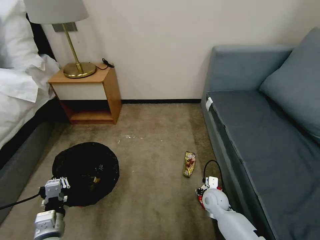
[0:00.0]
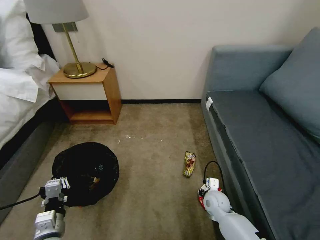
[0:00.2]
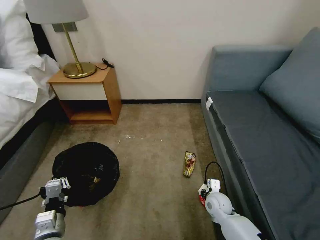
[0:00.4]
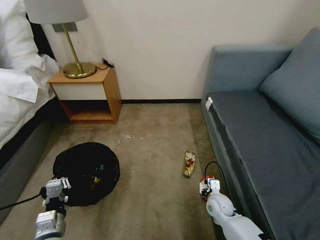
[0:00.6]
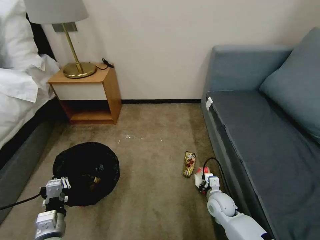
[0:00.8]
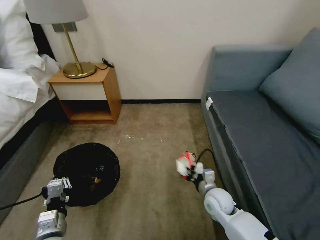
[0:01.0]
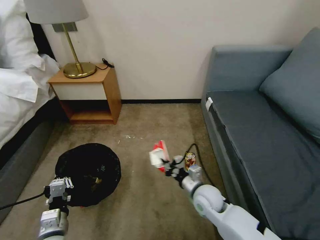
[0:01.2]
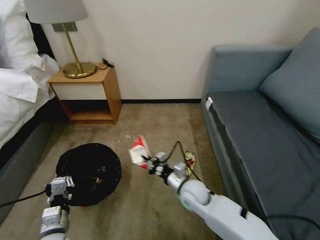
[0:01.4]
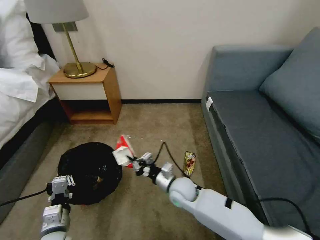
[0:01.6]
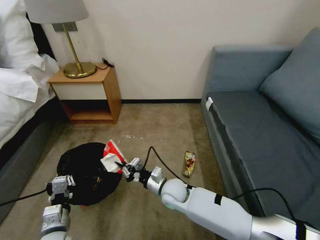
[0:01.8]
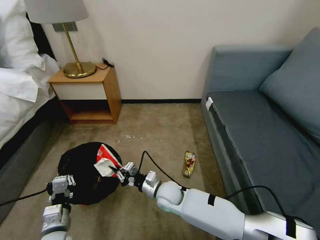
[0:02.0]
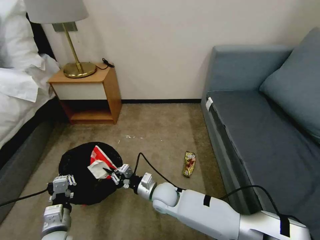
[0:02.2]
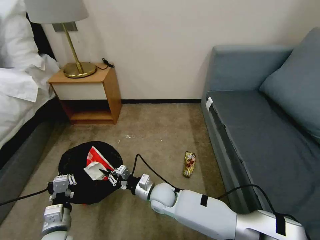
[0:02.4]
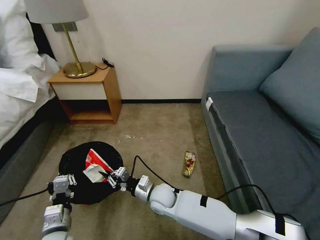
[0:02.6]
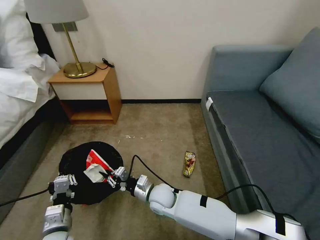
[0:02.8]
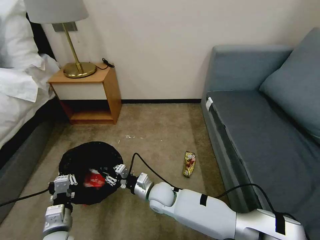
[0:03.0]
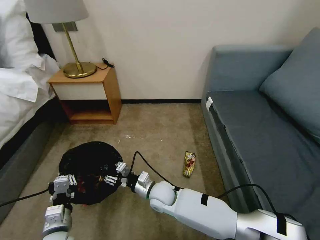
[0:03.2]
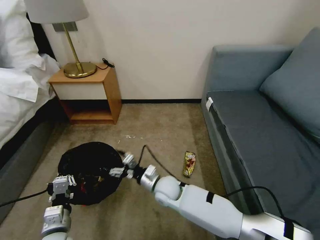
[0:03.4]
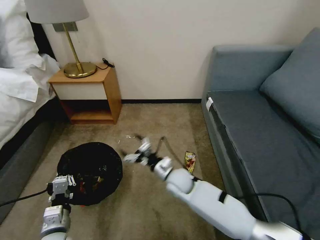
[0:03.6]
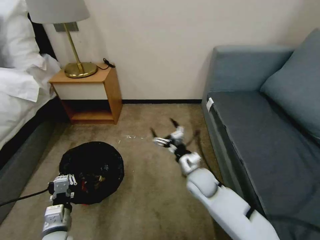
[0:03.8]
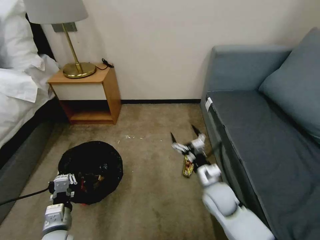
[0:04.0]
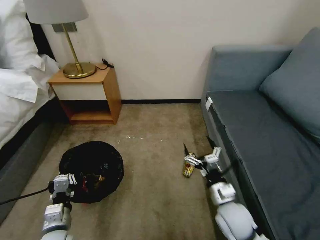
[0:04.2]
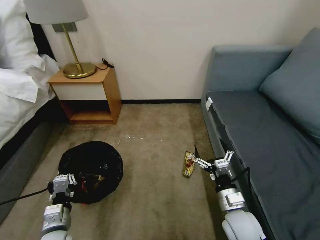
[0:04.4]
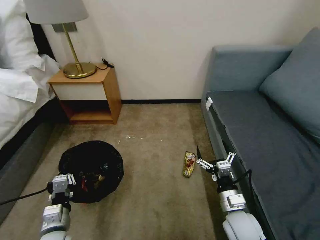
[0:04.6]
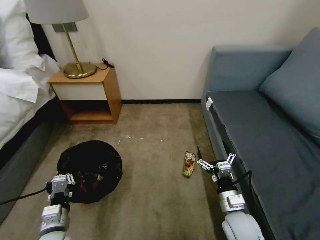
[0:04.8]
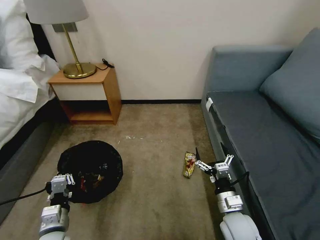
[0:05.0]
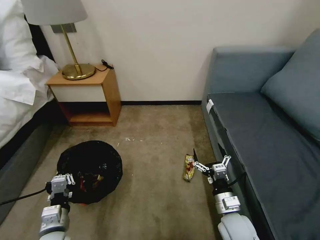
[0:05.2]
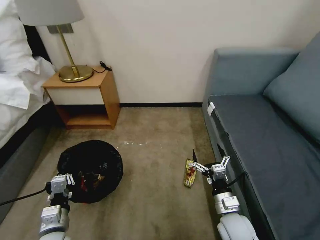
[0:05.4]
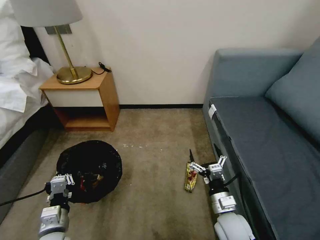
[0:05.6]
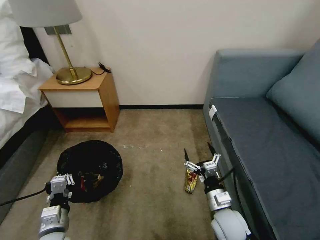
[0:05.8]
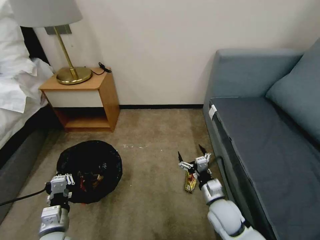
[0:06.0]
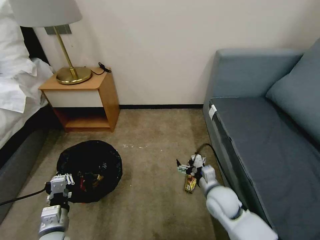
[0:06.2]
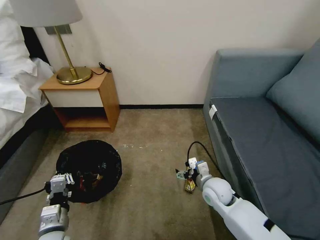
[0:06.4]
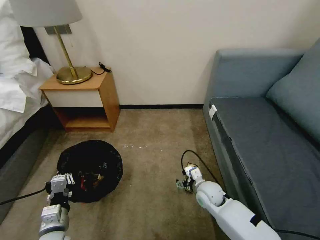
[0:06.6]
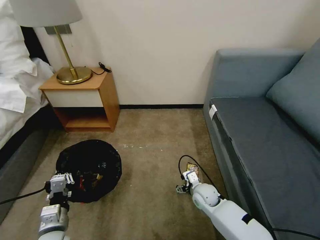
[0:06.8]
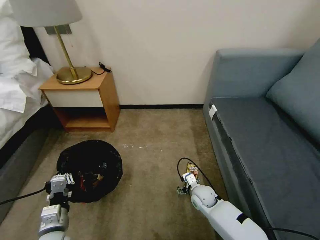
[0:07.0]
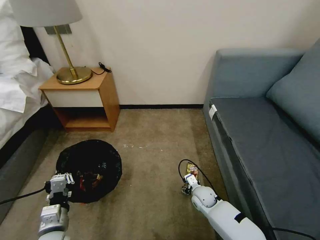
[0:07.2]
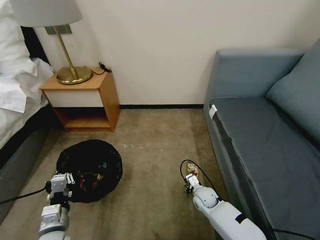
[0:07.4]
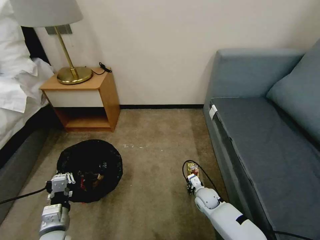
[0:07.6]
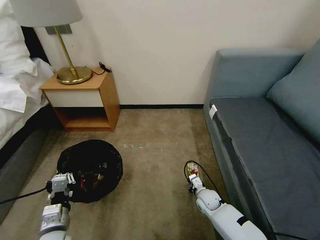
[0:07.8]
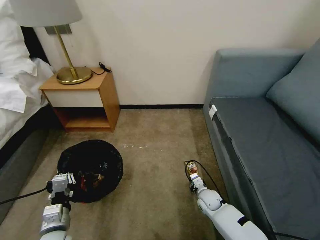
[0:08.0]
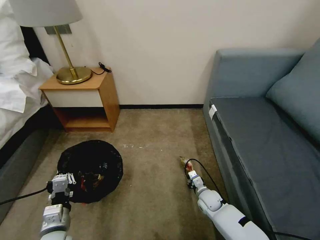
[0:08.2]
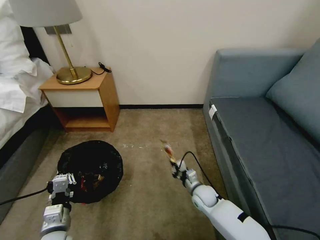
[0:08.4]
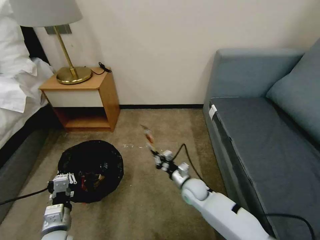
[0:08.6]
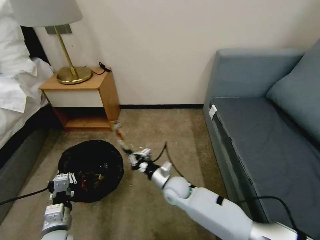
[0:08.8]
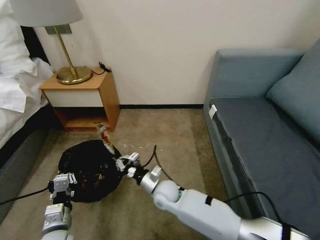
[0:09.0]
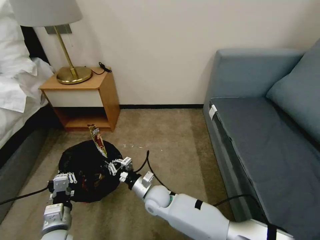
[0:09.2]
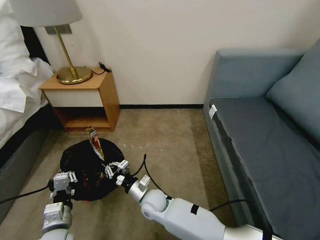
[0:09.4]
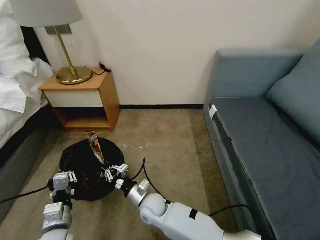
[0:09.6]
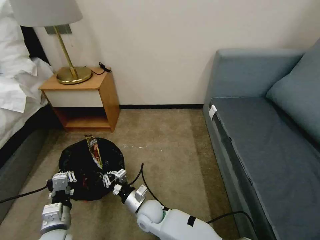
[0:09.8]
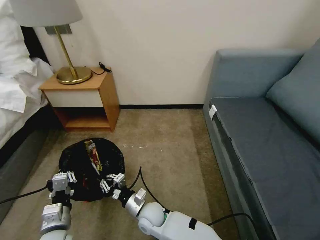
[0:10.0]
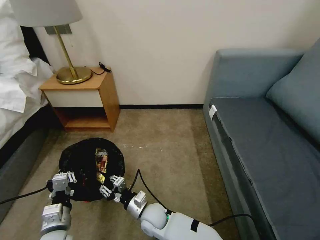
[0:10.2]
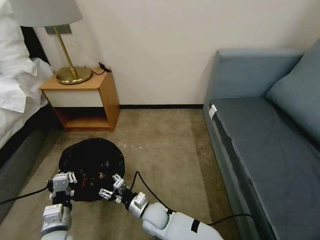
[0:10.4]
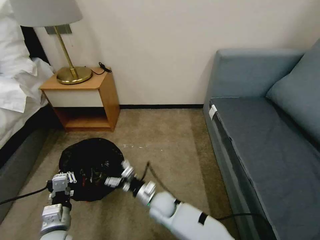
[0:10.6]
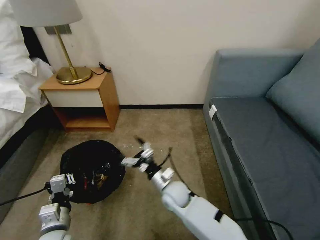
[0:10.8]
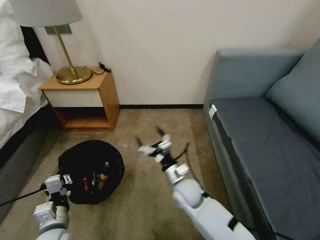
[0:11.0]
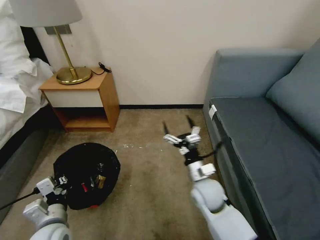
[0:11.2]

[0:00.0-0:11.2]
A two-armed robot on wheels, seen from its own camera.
Task of the whole recording: Pick up the trash bin, then pick up the garbage on the floor and place it into the trash bin.
0:00.0 to 0:01.6: The right gripper travels to the left and upward by approximately 15 cm, and closes up.
0:01.6 to 0:03.2: The right gripper heads to the left, covering approximately 10 cm, and opens up.
0:03.2 to 0:04.8: The right gripper goes roughly 25 cm to the right and backward, and opens.
0:04.8 to 0:06.4: The right gripper travels forward by about 10 cm.
0:06.4 to 0:08.0: The right gripper moves downward, approximately 15 cm, and closes.
0:08.0 to 0:09.6: The right gripper travels to the left by about 25 cm.
0:09.6 to 0:11.2: The right gripper travels to the right and upward by approximately 20 cm, and opens its fingers.

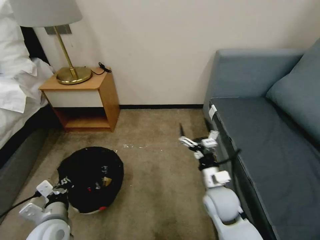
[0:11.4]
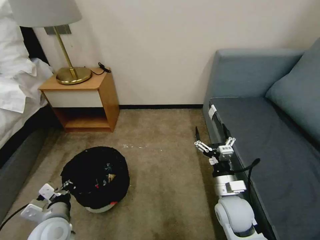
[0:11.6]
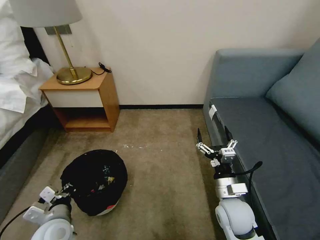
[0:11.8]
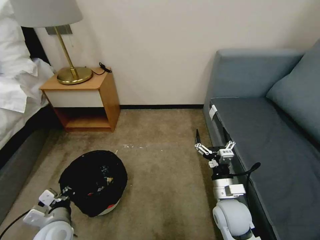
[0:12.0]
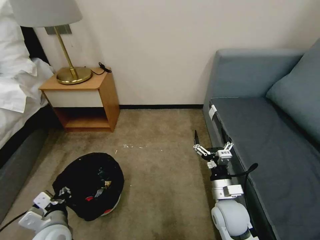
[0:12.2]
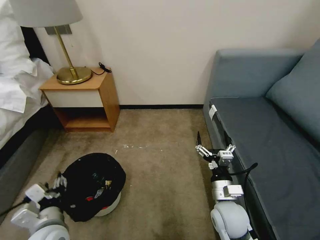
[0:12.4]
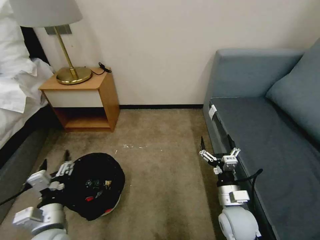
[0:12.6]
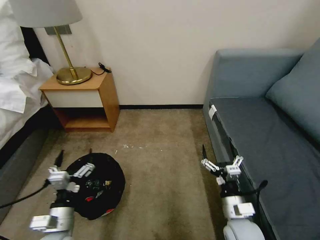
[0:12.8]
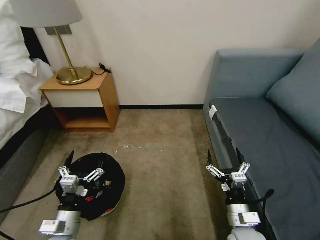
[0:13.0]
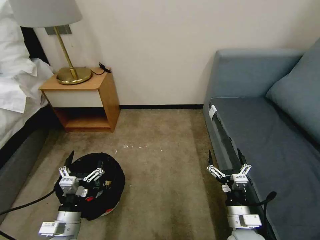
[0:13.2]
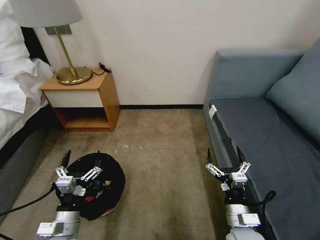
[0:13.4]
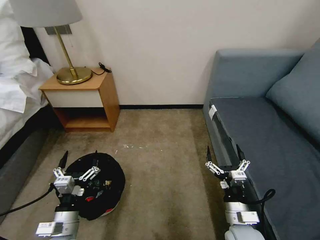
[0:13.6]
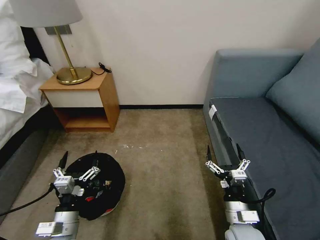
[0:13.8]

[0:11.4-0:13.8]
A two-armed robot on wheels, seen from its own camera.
Task of the whole recording: Pick up the trash bin, then pick up the garbage on the floor and place it into the trash bin.
0:11.4 to 0:12.6: The right gripper ends up roughly 5 cm from where it was. The left gripper opens up.
0:12.6 to 0:13.8: The left gripper shifts by approximately 5 cm. The right gripper ends up about 5 cm from where it was.

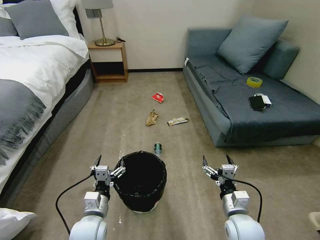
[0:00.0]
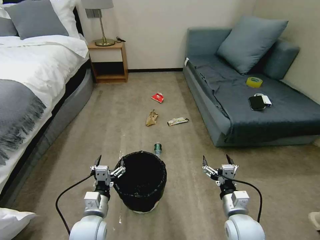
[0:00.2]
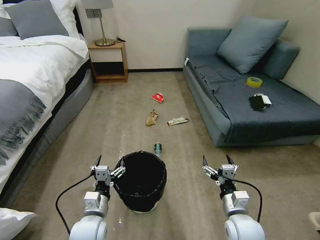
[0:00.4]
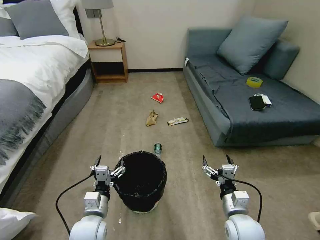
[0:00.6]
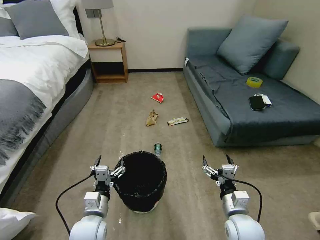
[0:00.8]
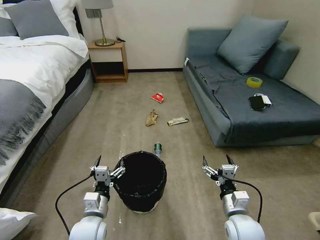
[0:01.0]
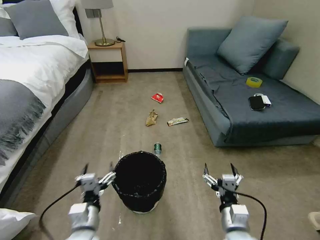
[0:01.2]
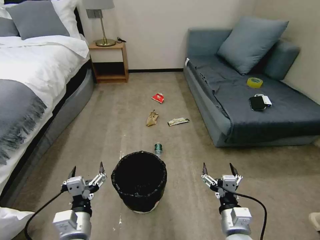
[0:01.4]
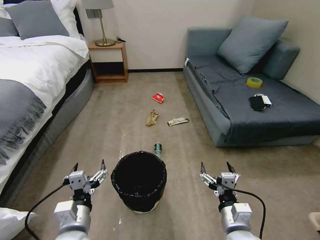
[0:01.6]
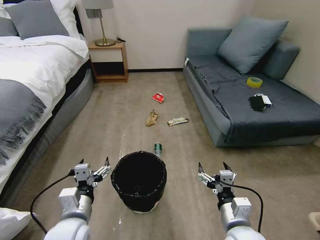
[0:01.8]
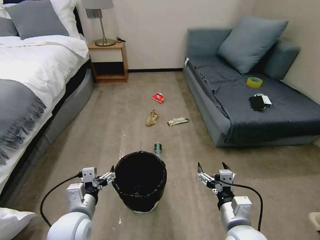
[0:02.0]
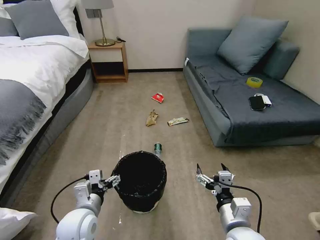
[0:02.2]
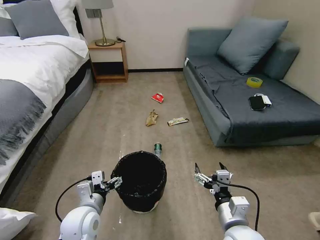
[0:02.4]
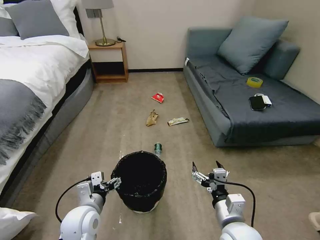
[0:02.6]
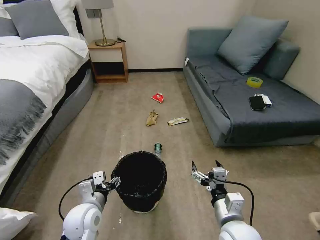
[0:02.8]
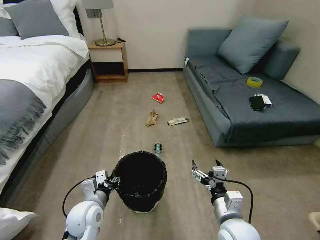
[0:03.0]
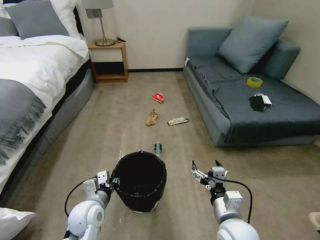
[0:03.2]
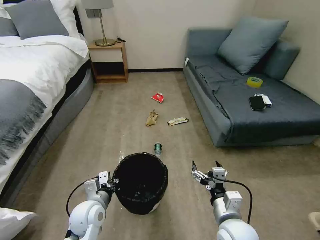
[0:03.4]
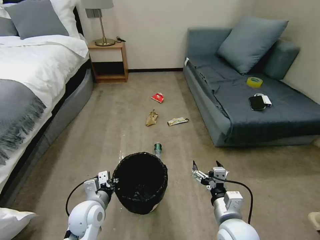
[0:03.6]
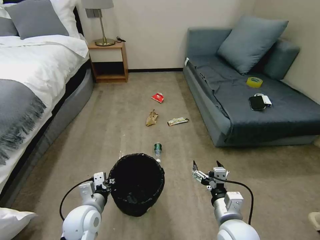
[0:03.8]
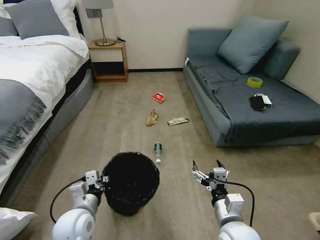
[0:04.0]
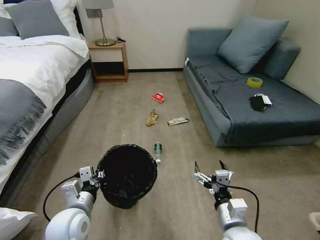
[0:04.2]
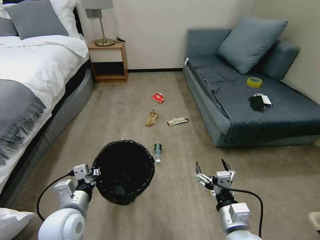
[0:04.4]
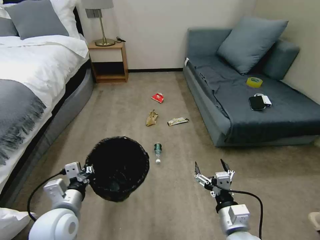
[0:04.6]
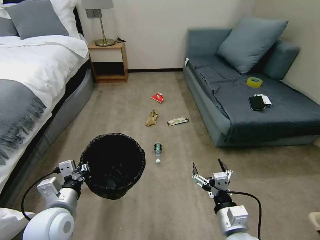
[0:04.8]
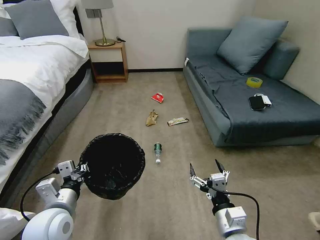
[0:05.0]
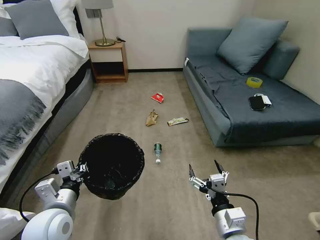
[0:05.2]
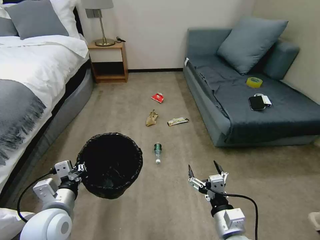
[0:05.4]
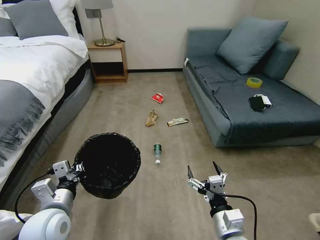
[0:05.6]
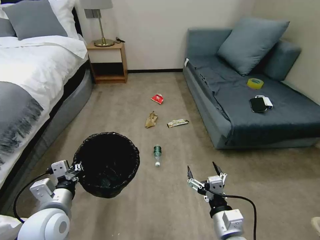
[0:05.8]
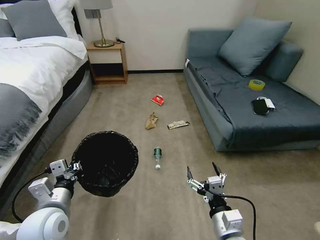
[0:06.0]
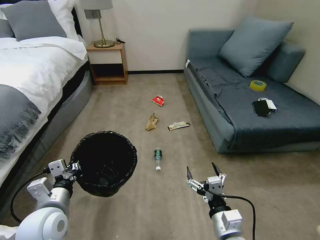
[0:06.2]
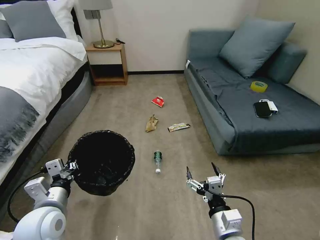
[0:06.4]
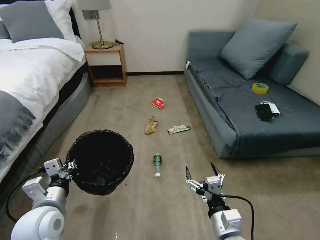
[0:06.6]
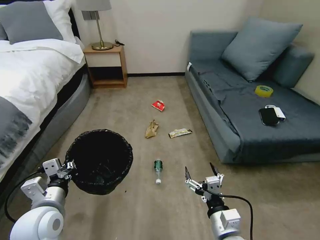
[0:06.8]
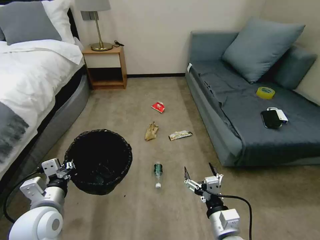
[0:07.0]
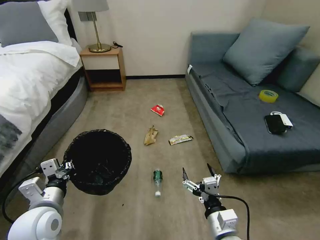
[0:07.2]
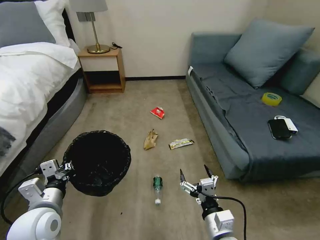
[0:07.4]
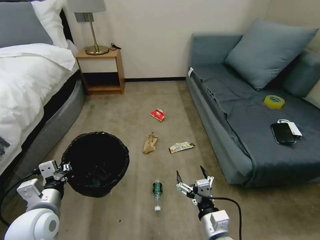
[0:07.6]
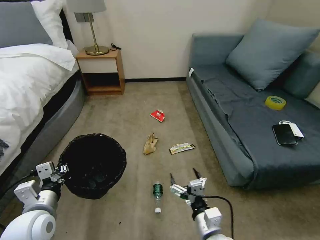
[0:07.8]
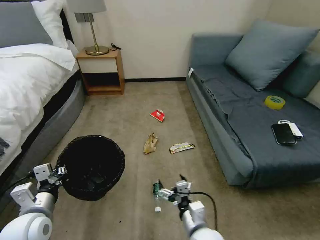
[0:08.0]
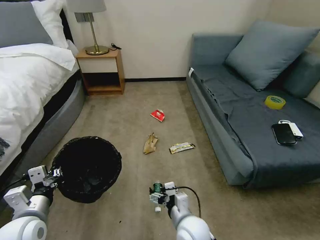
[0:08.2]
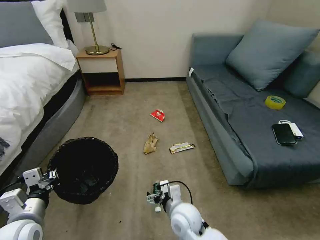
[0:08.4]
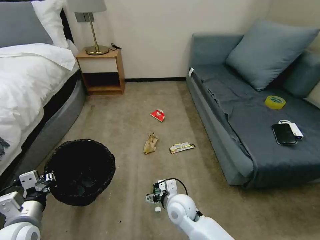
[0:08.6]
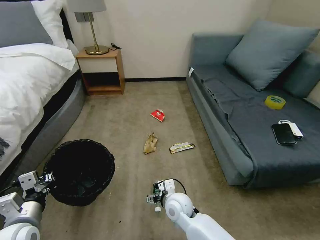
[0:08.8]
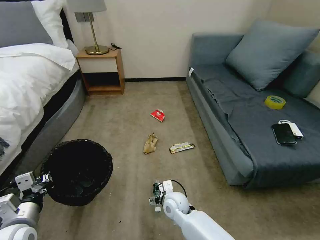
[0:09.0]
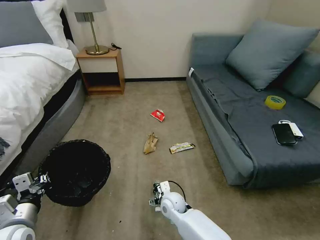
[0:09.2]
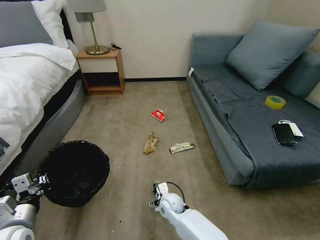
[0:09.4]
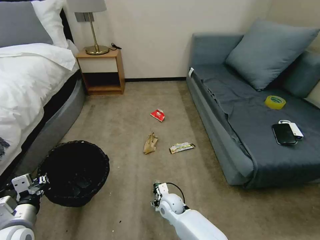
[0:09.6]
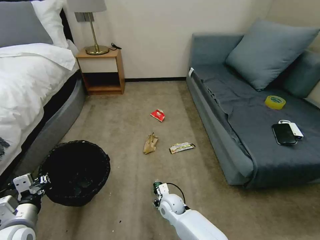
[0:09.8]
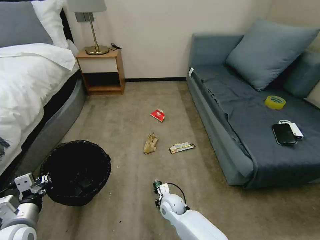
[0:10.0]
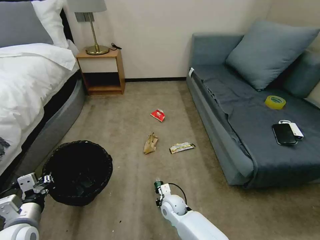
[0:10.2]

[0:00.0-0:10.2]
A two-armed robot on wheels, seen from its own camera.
Task of the whole recording: Pick up the trash bin, then pick up the garbage on the floor and place it into the trash bin.
0:01.4 to 0:03.0: The left gripper goes some 10 cm forward, and closes up.
0:03.0 to 0:04.4: The left gripper goes about 5 cm upward, and closes.
0:04.4 to 0:05.8: The grippers stay close to where they were, moving slightly.
0:07.2 to 0:08.8: The left gripper shifts roughly 5 cm to the left, while the right gripper shifts about 20 cm forward, to the left and downward.
0:08.8 to 0:10.2: The right gripper shifts some 10 cm downward, and closes up.
